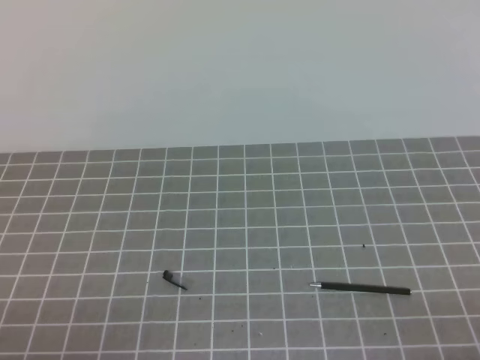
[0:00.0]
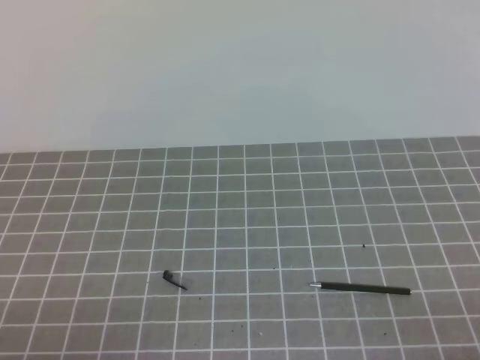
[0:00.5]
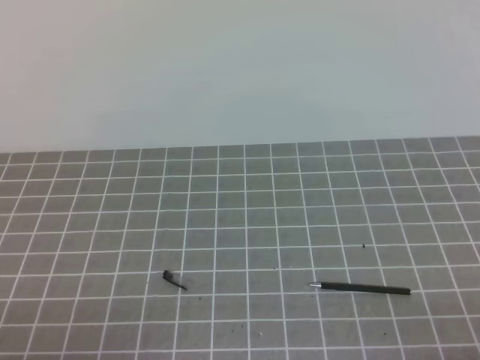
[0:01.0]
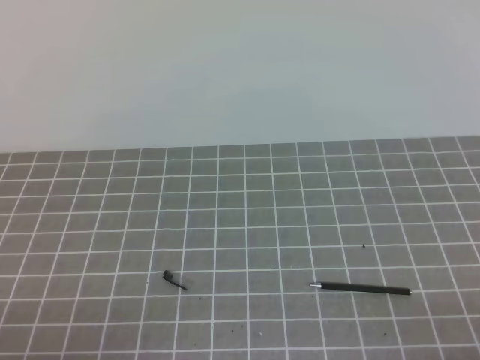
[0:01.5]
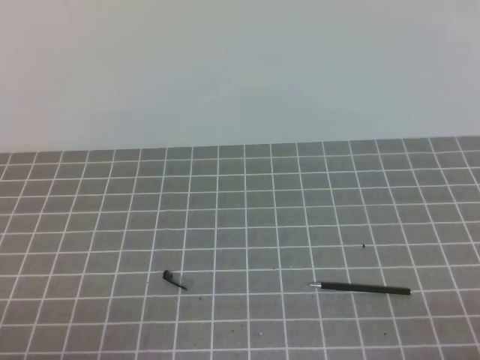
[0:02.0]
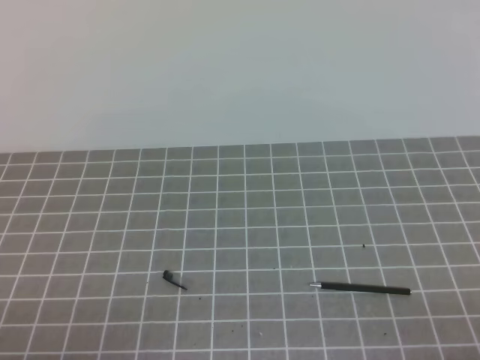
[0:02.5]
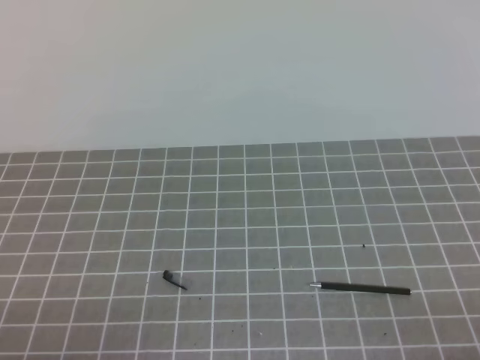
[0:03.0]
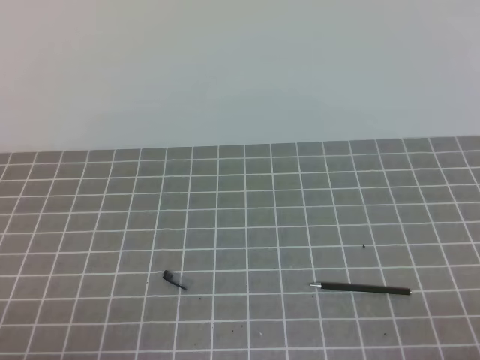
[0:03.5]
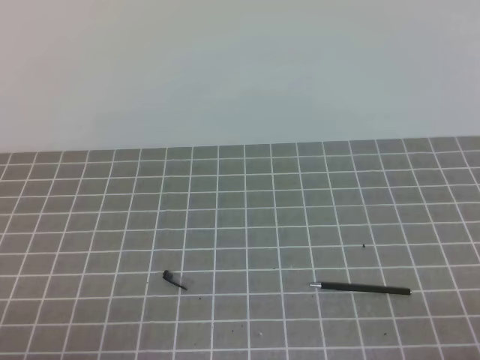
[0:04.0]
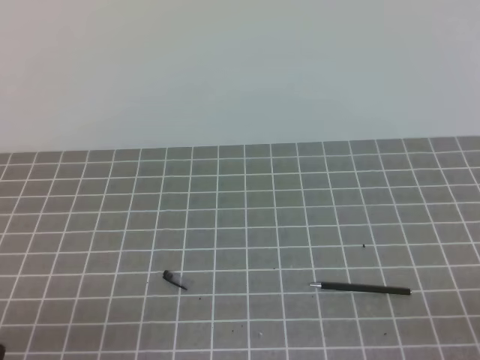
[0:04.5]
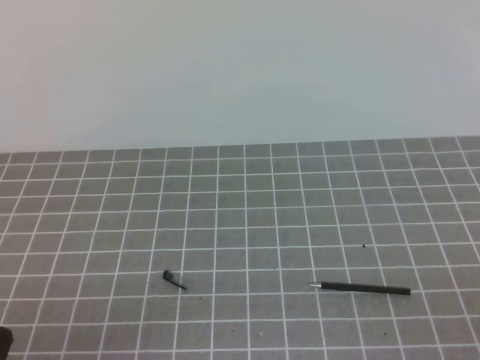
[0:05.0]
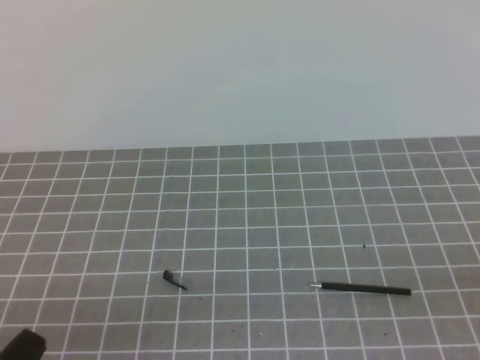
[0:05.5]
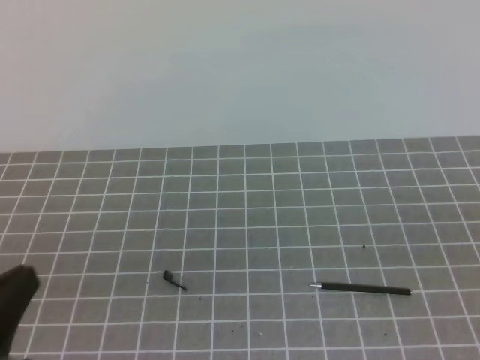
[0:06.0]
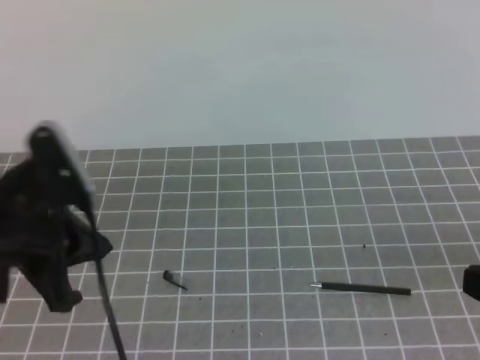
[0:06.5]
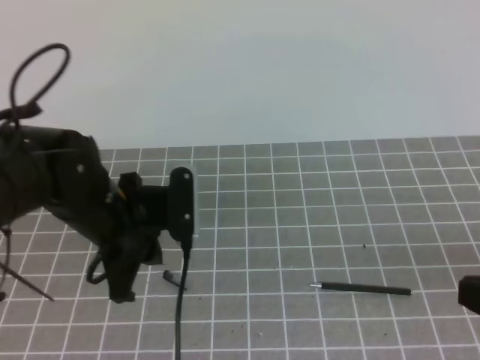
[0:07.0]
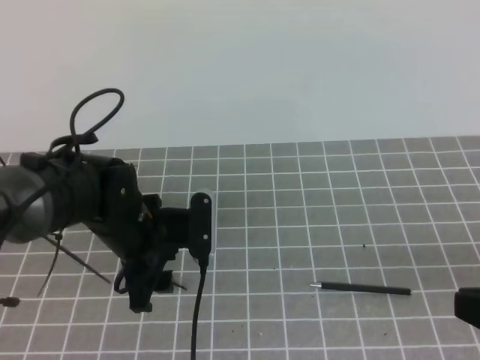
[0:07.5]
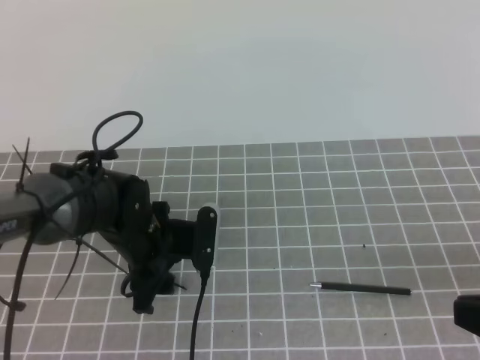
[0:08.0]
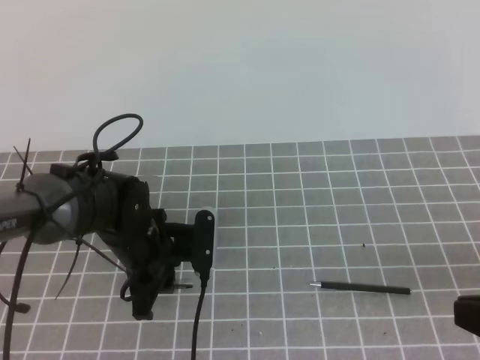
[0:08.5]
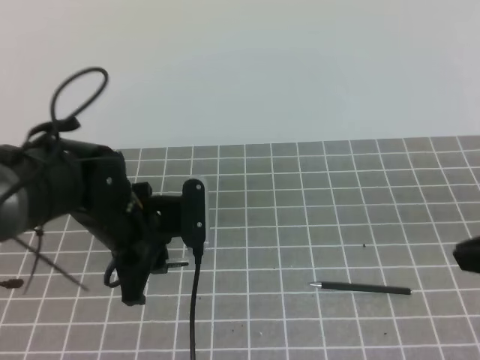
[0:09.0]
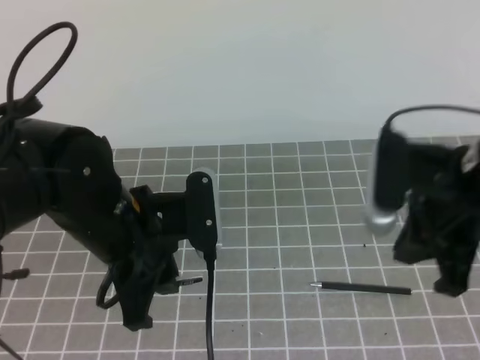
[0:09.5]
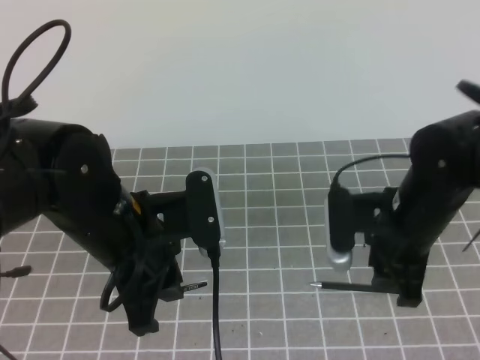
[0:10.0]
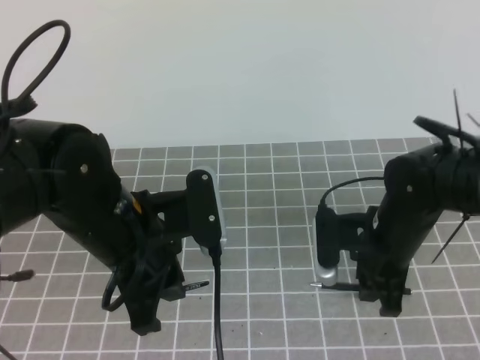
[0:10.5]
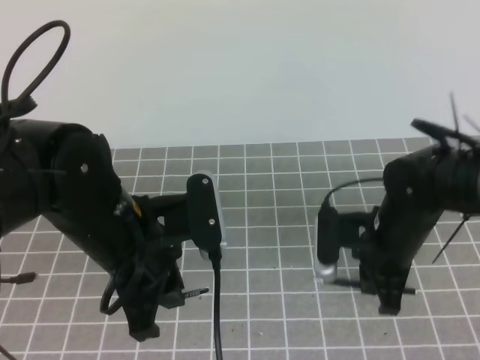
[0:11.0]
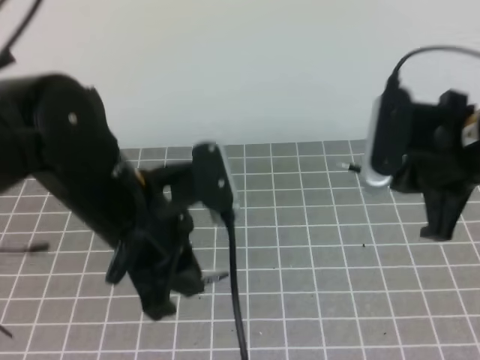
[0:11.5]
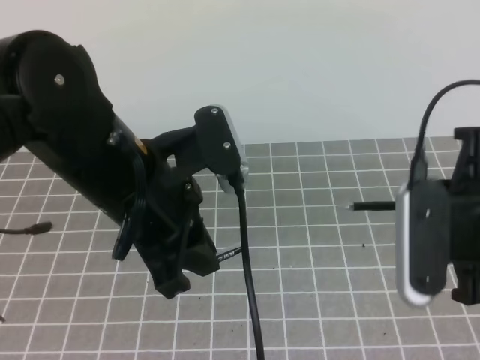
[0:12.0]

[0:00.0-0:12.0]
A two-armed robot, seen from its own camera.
Task of the whole recording: on the grey tablecloth, hold the pen cap in one hand and the pen in the other, then cover the pen cap.
0:00.0 to 0:04.0: Both grippers stay about where they are.
0:04.0 to 0:06.0: The left gripper is displaced upward by some 10 cm.
0:06.0 to 0:08.0: The right gripper moves about 5 cm. The left gripper is displaced forward, downward and to the right by some 30 cm, and opens up.
0:08.0 to 0:10.0: The right gripper travels forward and to the left by approximately 20 cm, and opens up, while the left gripper moves upward and backward, roughly 15 cm, and closes up.
0:10.0 to 0:12.0: The right gripper is displaced upward and backward by roughly 15 cm, and closes up. The left gripper moves upward, some 5 cm.

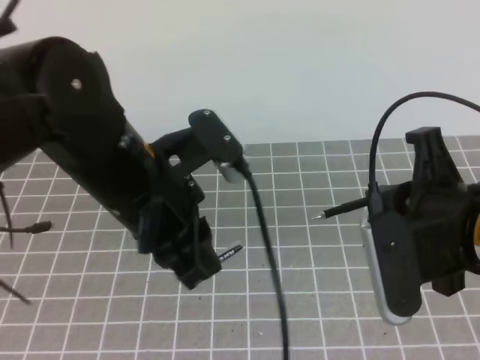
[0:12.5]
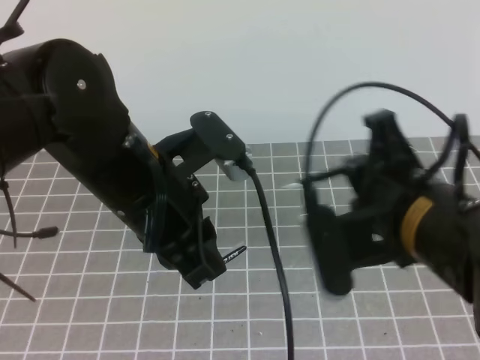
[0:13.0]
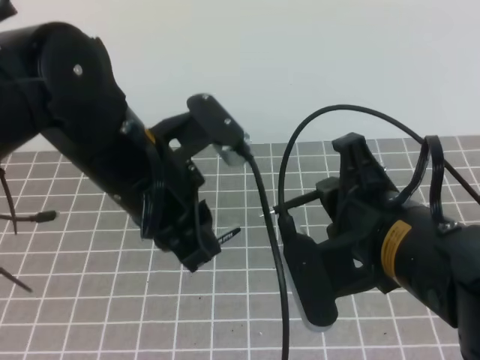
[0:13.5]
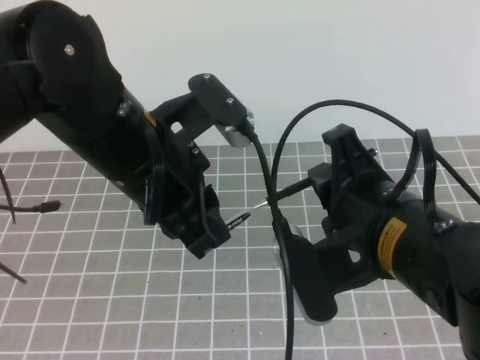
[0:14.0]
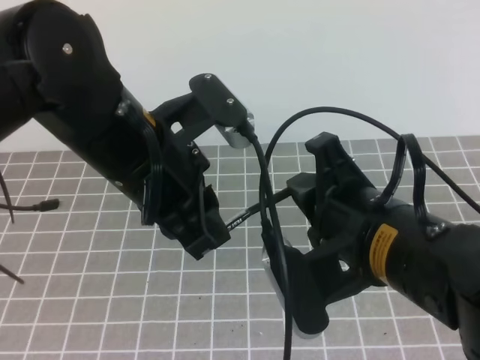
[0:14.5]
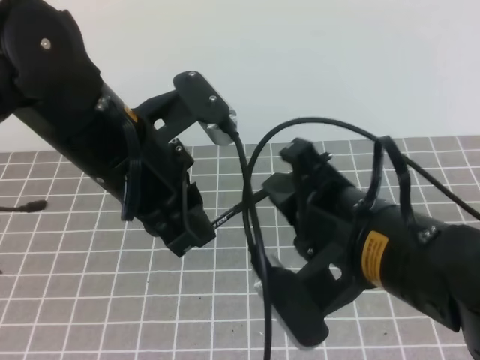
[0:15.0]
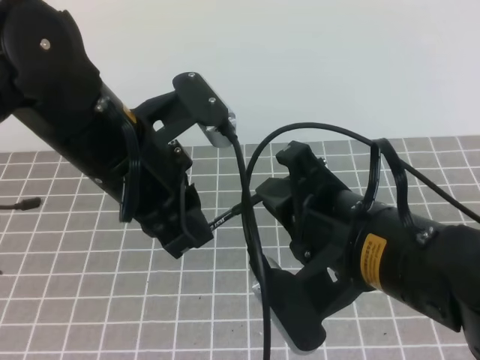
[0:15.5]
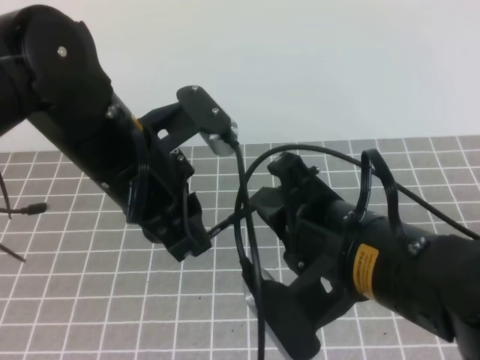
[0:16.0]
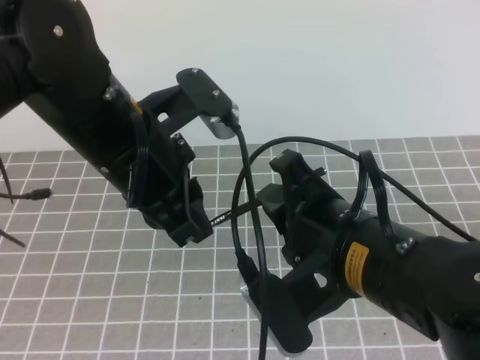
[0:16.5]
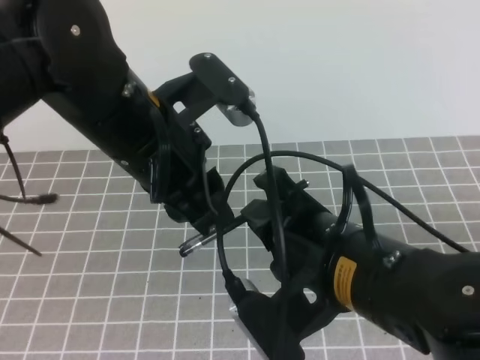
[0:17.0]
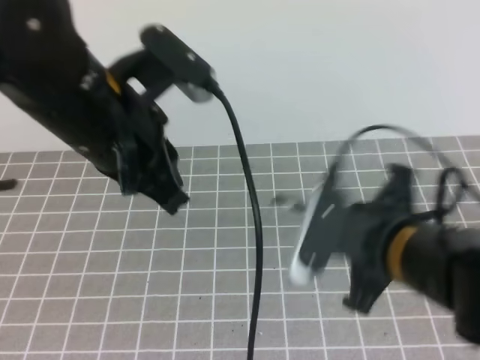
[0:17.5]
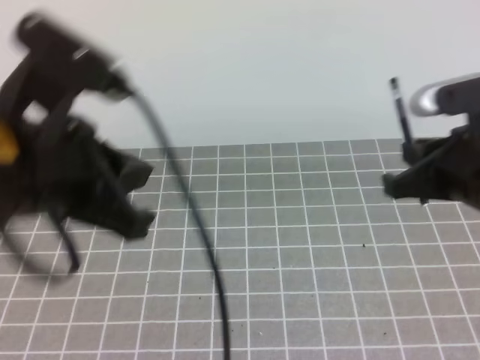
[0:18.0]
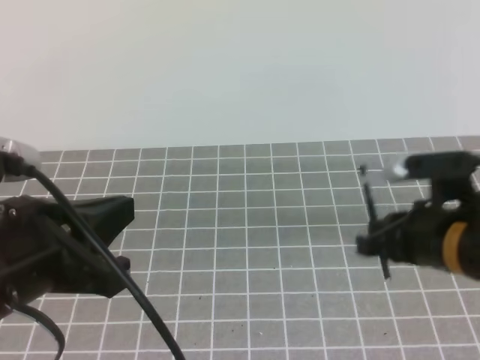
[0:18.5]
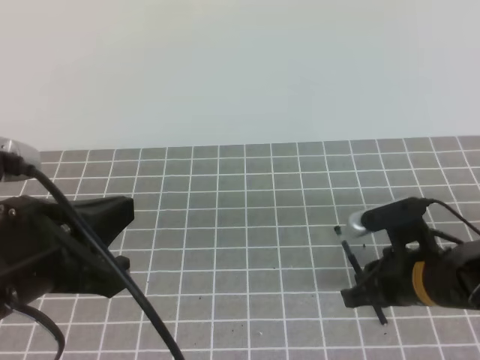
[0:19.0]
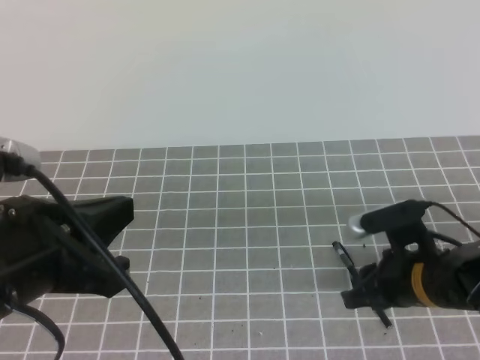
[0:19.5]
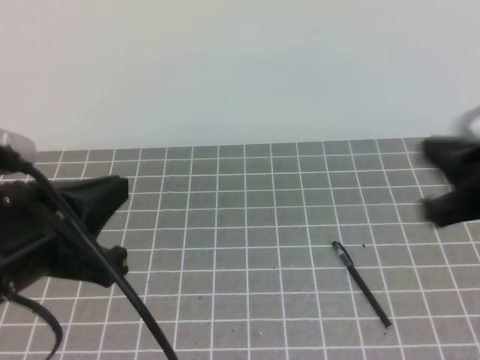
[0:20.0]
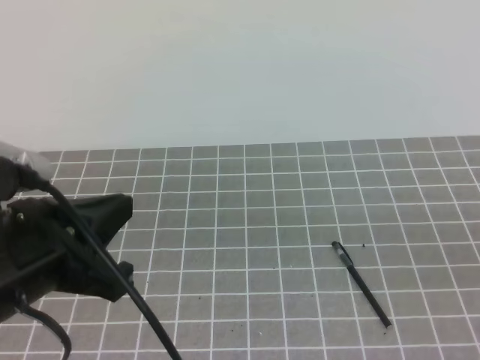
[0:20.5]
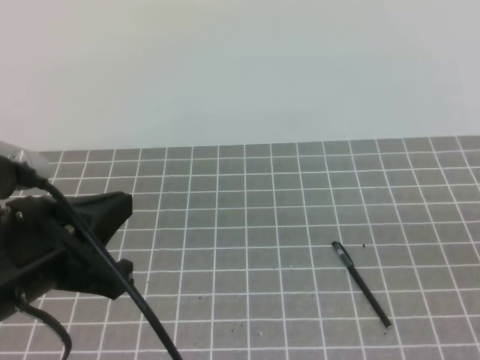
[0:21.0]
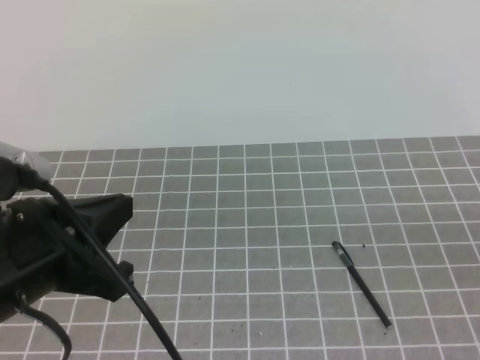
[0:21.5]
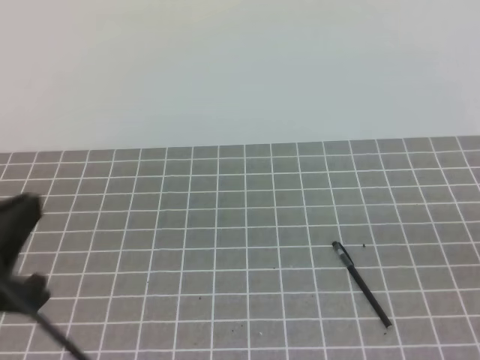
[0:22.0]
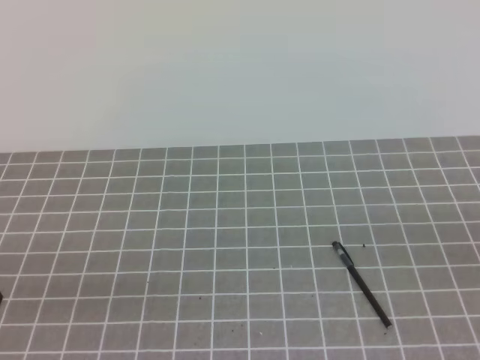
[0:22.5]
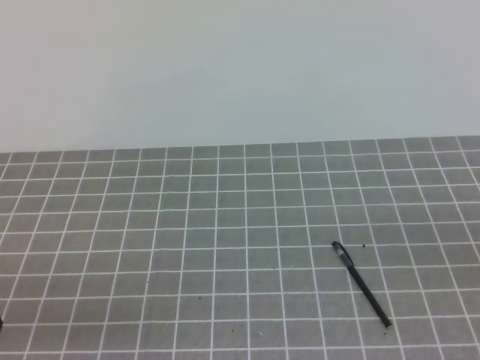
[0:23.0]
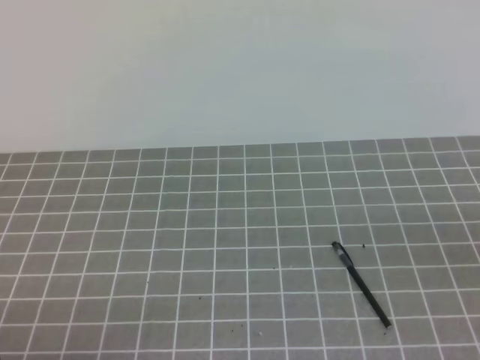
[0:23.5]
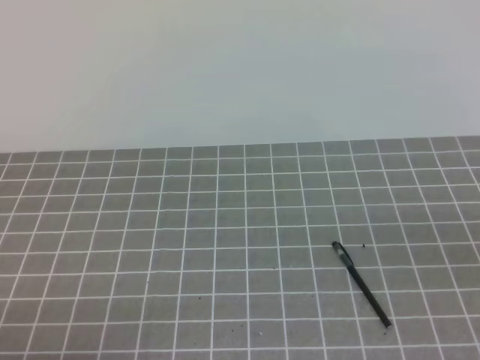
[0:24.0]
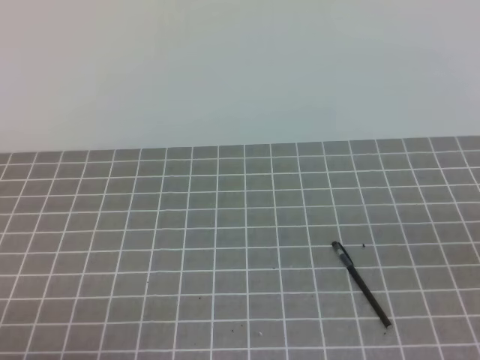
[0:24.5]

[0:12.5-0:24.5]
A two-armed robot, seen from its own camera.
Task of the whole recording: on the grey tablecloth, hold the pen cap in one hand and the pen in the other, then cover the pen cap.
0:12.5 to 0:14.5: The right gripper goes about 10 cm to the left.
0:16.5 to 0:18.5: The right gripper moves to the right, forward and downward, roughly 15 cm; the left gripper goes approximately 15 cm backward and to the left, and opens, then closes again.
0:18.5 to 0:20.5: The right gripper goes about 15 cm backward and to the right, travels downward and back again, some 5 cm each way, and opens and closes again.
0:20.5 to 0:22.5: The left gripper shifts roughly 15 cm backward, downward and to the left.
